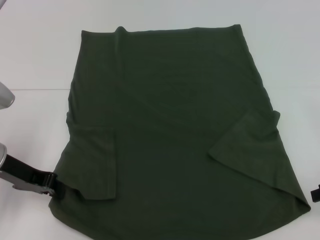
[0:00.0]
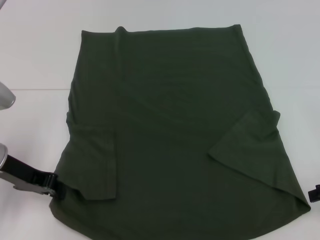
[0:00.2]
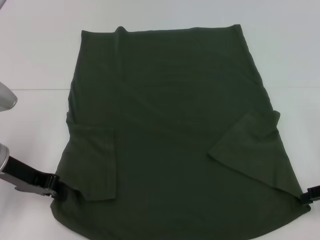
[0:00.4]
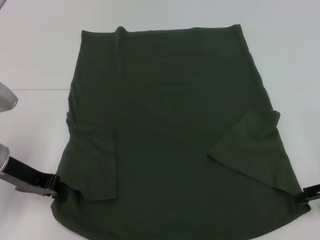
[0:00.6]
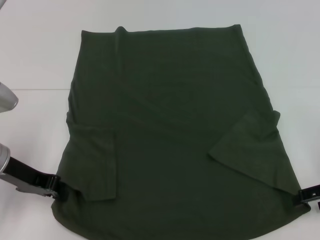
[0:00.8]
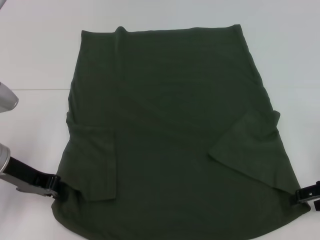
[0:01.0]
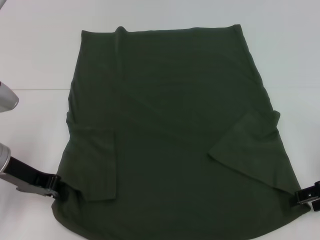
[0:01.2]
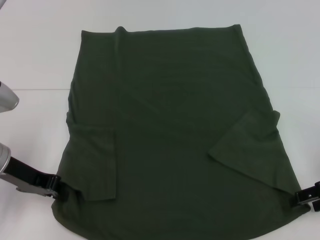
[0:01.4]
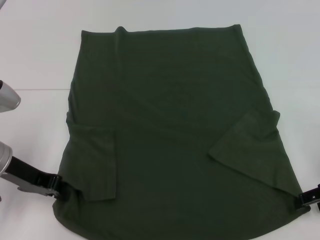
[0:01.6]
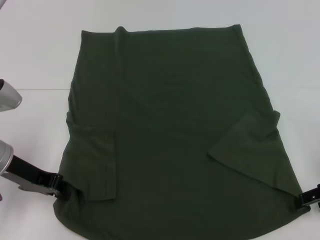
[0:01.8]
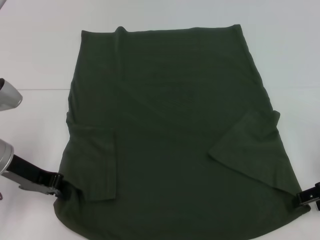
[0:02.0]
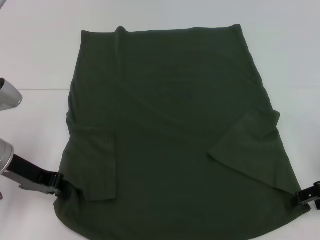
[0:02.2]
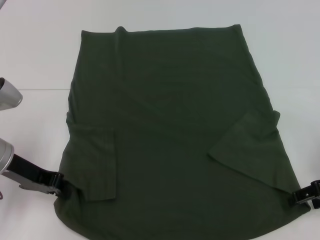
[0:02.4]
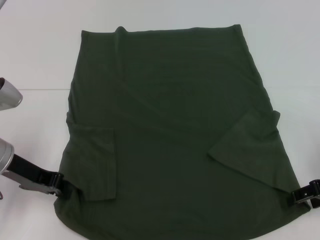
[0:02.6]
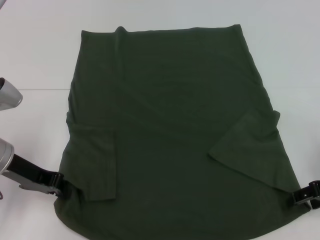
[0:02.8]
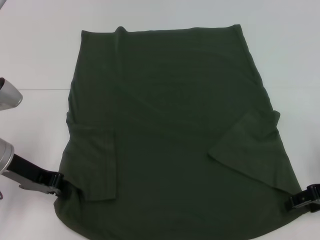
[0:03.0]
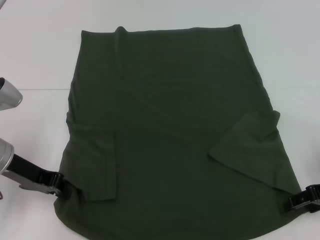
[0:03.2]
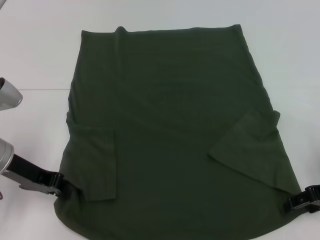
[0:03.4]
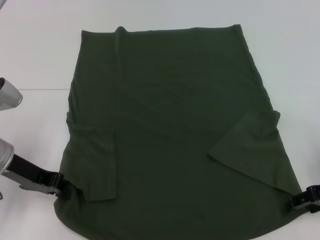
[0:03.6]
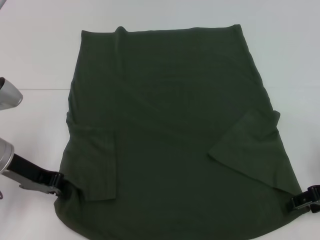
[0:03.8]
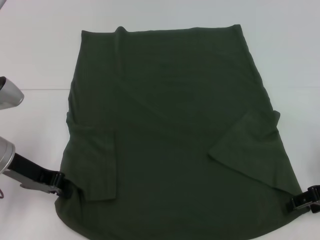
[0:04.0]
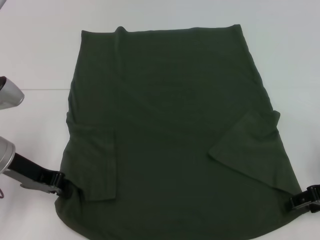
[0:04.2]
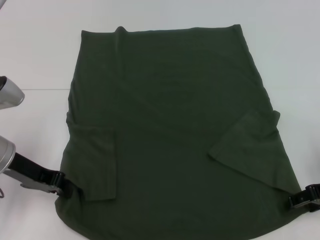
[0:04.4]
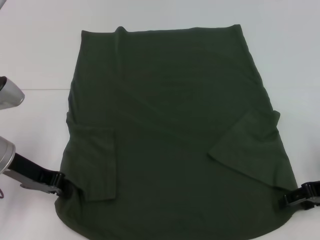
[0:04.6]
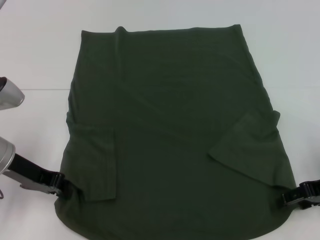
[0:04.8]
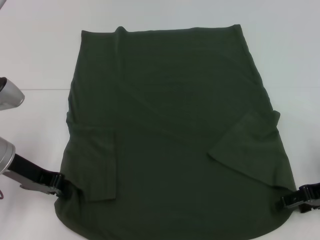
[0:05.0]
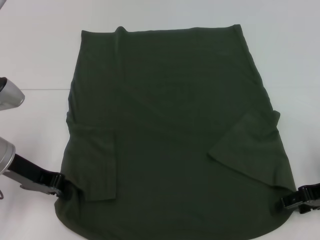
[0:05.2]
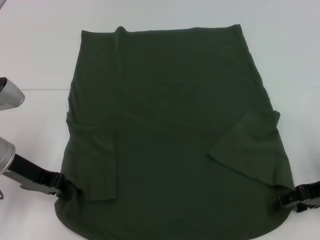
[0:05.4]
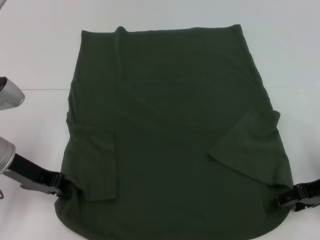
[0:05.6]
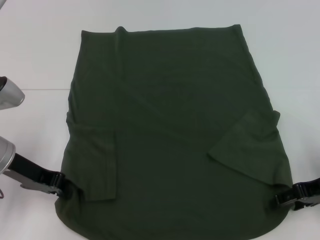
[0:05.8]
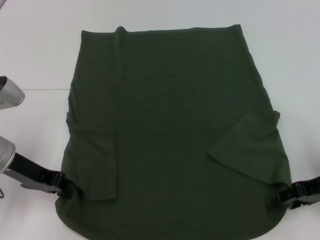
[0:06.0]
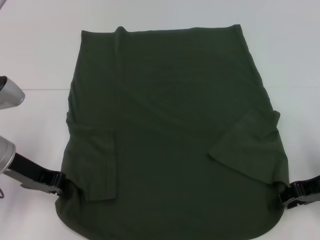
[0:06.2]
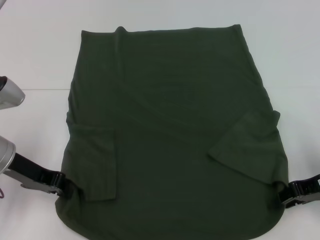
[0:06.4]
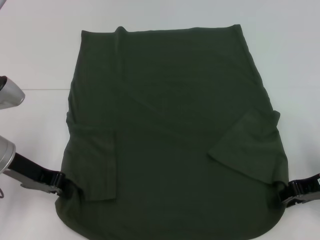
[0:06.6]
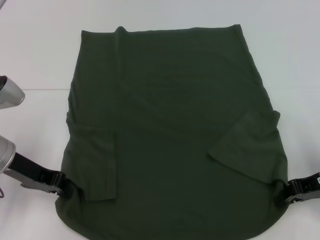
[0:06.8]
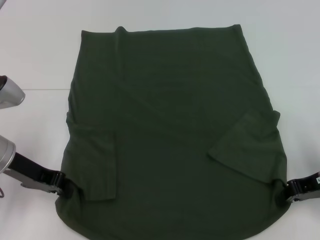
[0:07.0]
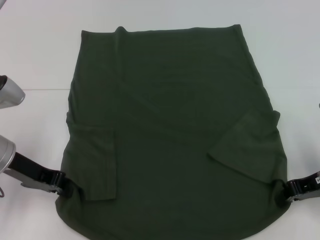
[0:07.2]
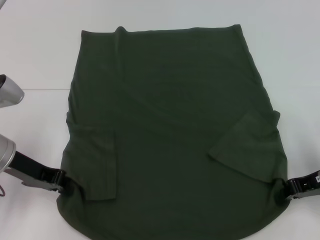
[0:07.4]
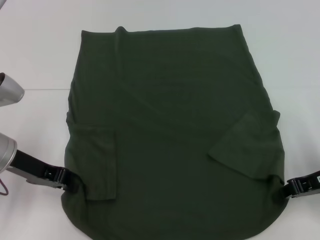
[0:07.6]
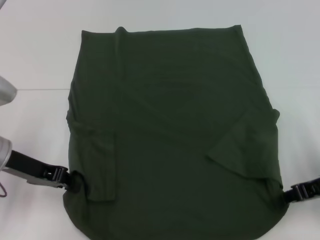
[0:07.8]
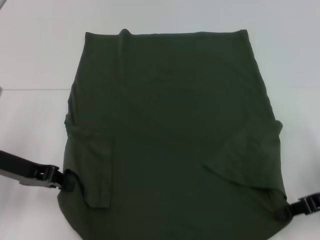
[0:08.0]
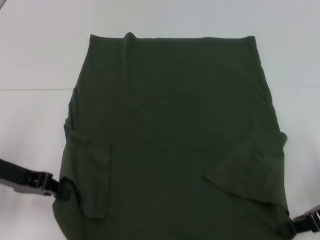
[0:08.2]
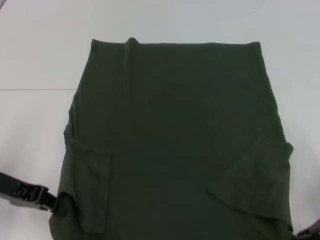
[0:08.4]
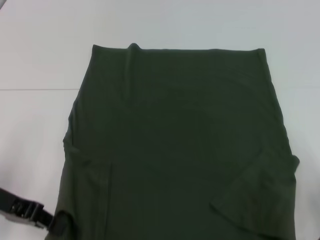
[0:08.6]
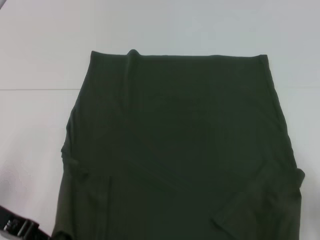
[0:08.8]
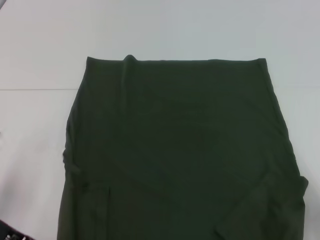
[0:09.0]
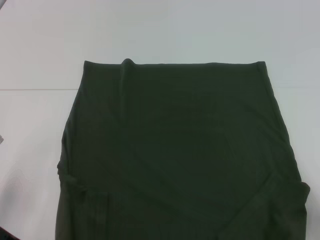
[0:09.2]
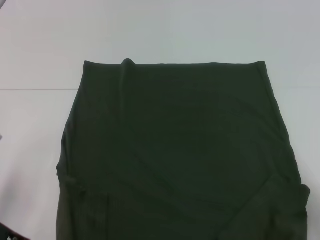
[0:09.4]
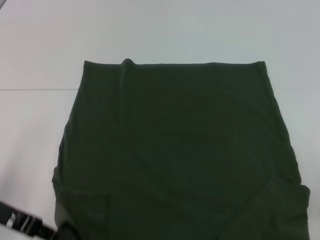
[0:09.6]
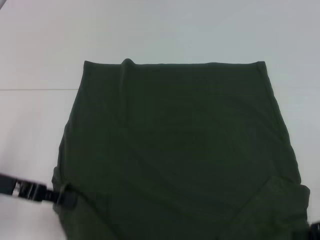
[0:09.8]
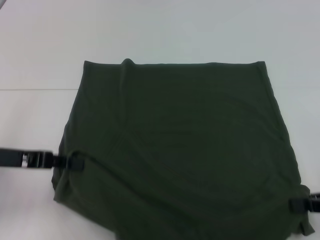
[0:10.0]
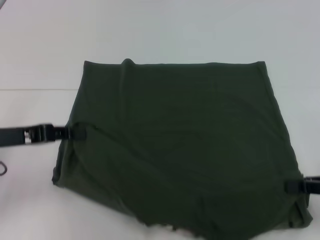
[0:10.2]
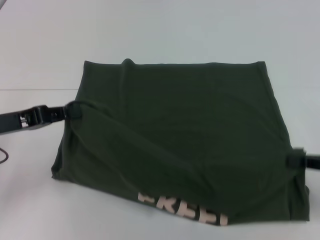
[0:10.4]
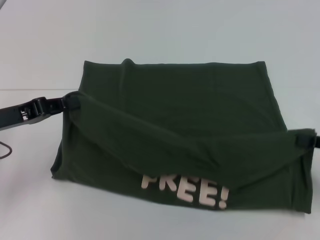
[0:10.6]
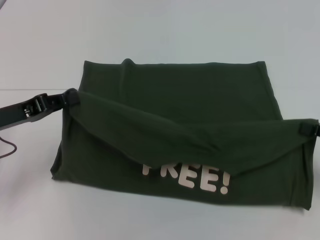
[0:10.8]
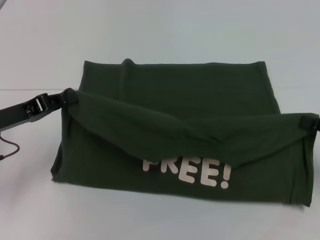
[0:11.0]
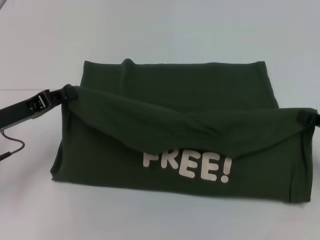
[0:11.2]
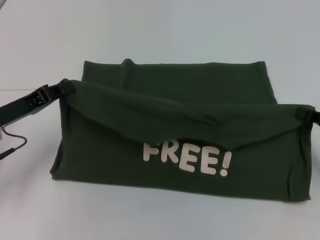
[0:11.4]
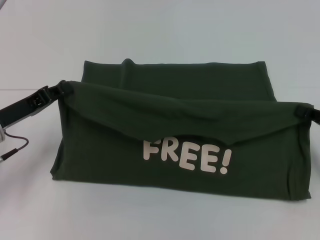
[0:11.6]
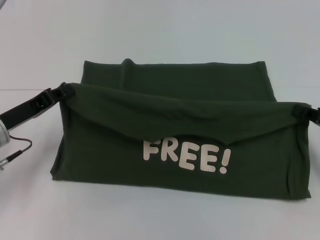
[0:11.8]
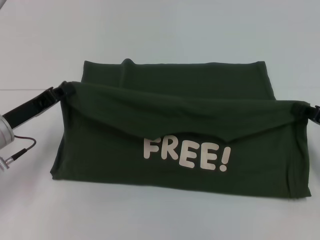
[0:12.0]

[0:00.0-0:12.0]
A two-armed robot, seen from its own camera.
Step, 0:00.0 to 0:07.8: Grab the bottom right corner with your right hand.
0:00.0 to 0:03.0: There are only small adjustments of the grippers.
0:03.0 to 0:04.4: Neither gripper changes place.
0:04.4 to 0:06.0: The grippers stay close to where they were, moving slightly.
0:06.0 to 0:07.6: The right gripper closes its fingers.
0:07.6 to 0:09.0: The grippers both shift backward by about 10 cm.
0:09.0 to 0:10.4: The right gripper shifts by approximately 5 cm.
0:10.4 to 0:12.0: The left gripper shifts some 5 cm downward. The right gripper heads forward, covering about 5 cm.

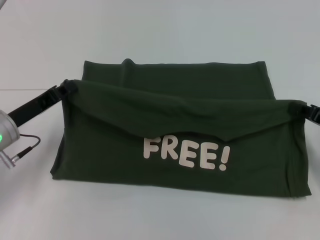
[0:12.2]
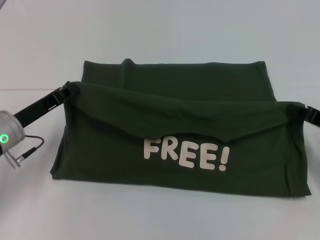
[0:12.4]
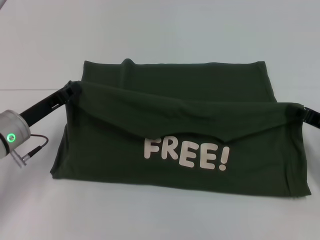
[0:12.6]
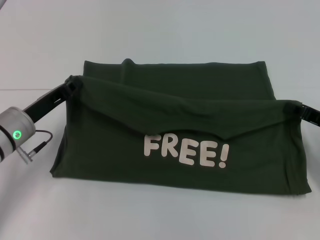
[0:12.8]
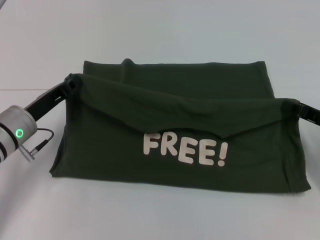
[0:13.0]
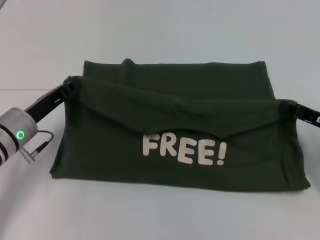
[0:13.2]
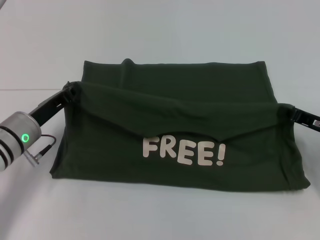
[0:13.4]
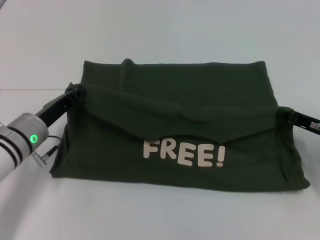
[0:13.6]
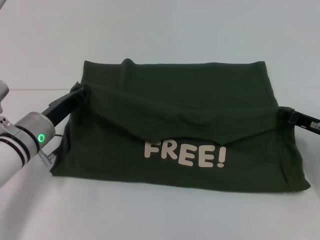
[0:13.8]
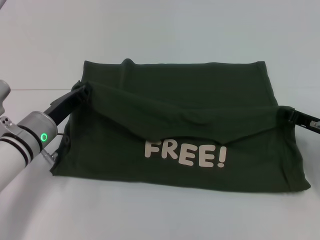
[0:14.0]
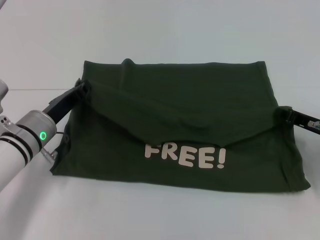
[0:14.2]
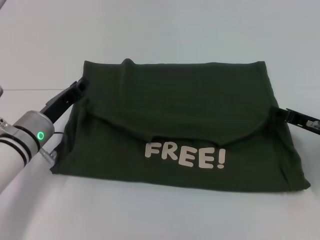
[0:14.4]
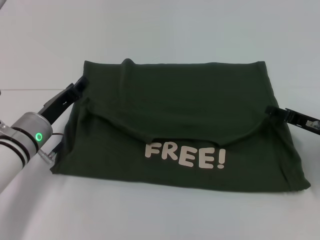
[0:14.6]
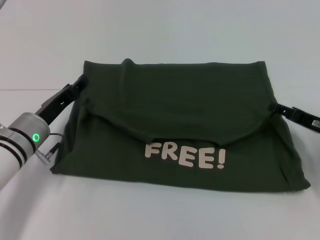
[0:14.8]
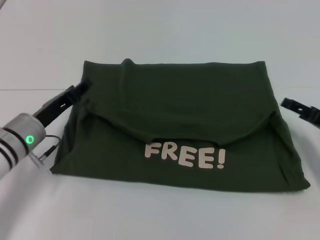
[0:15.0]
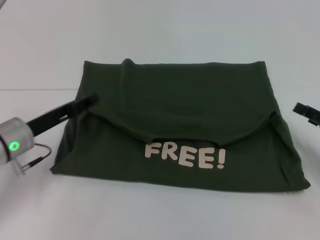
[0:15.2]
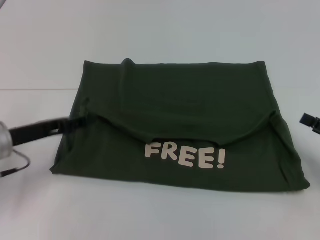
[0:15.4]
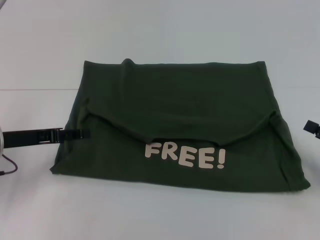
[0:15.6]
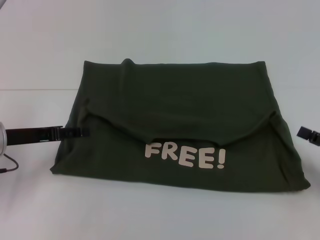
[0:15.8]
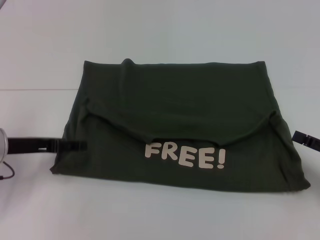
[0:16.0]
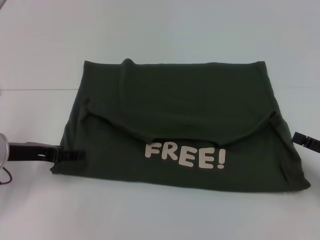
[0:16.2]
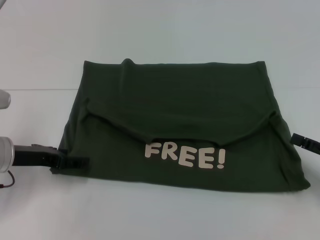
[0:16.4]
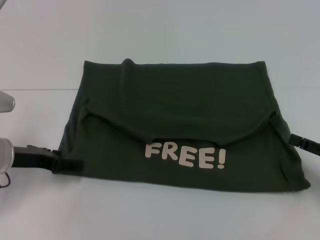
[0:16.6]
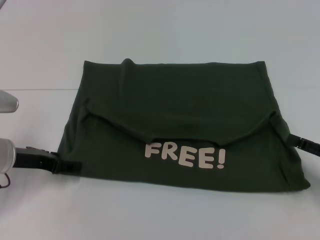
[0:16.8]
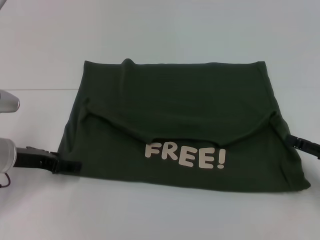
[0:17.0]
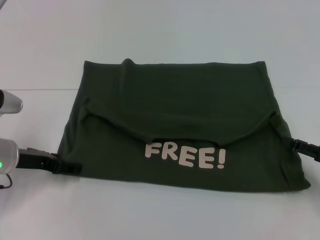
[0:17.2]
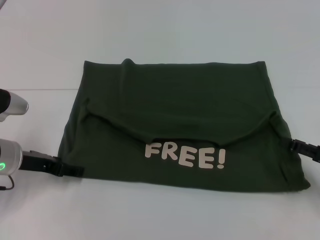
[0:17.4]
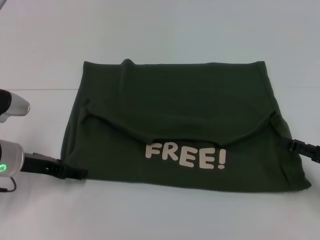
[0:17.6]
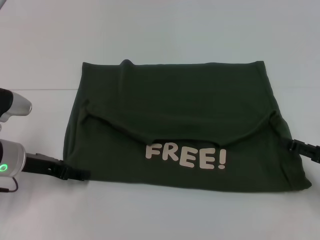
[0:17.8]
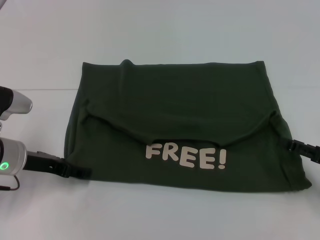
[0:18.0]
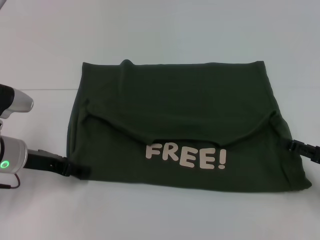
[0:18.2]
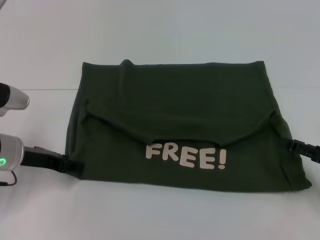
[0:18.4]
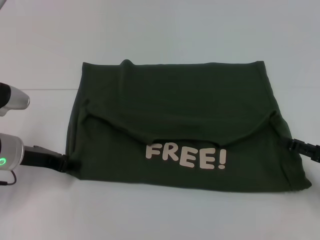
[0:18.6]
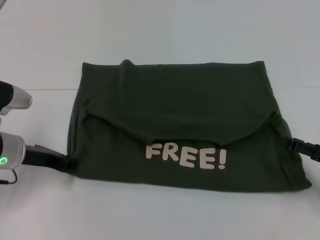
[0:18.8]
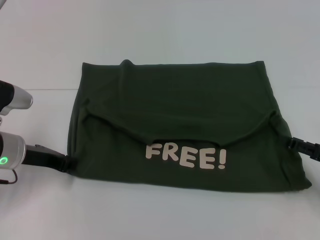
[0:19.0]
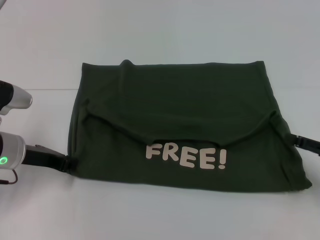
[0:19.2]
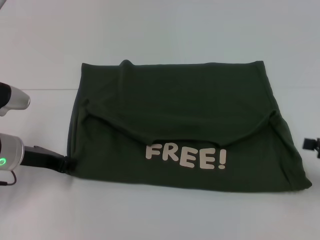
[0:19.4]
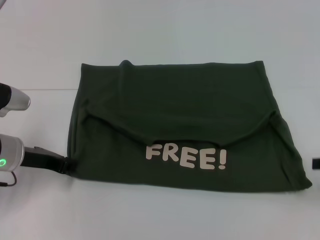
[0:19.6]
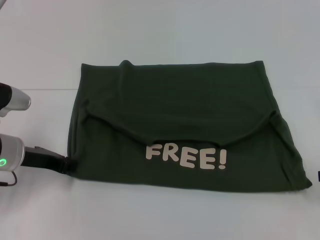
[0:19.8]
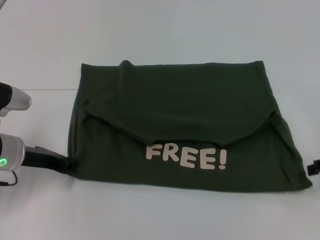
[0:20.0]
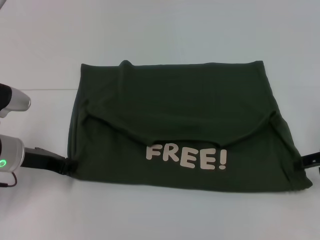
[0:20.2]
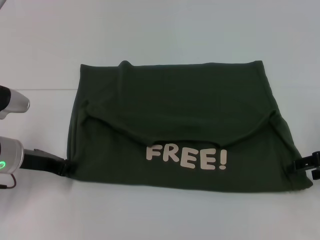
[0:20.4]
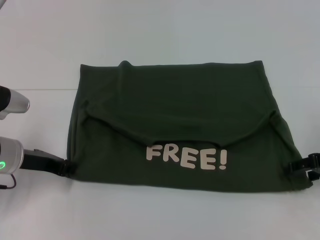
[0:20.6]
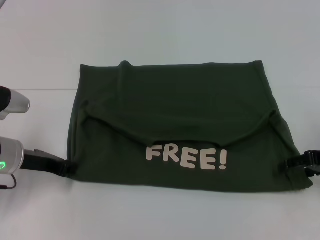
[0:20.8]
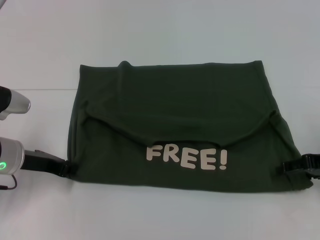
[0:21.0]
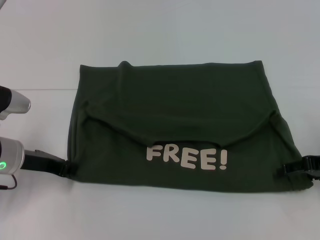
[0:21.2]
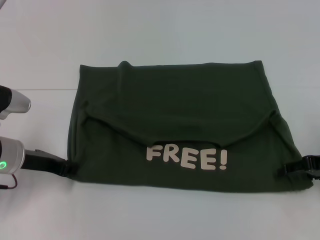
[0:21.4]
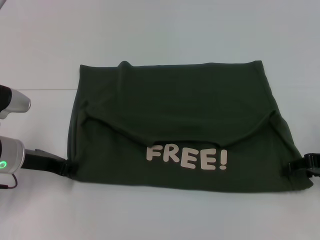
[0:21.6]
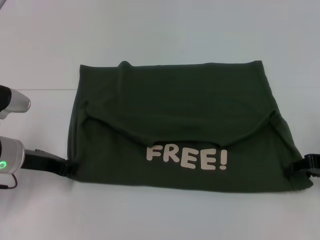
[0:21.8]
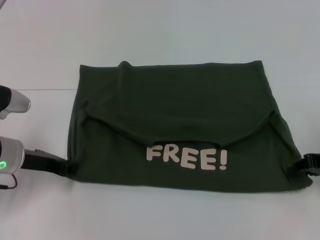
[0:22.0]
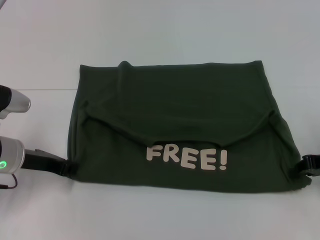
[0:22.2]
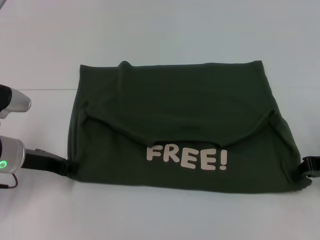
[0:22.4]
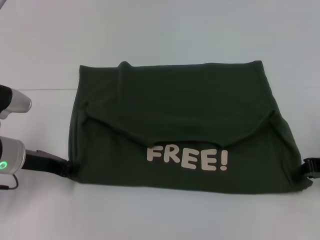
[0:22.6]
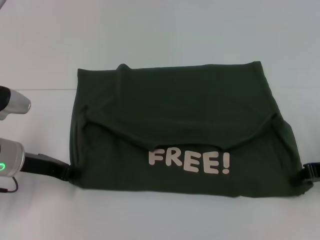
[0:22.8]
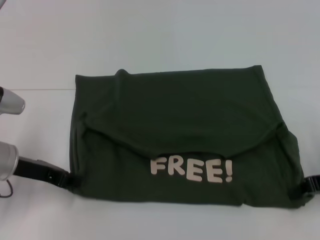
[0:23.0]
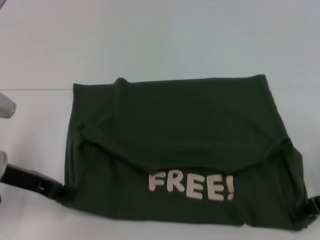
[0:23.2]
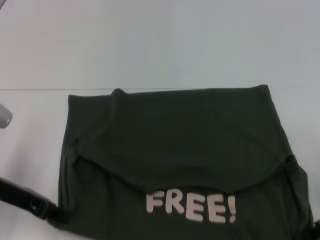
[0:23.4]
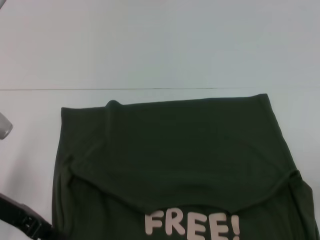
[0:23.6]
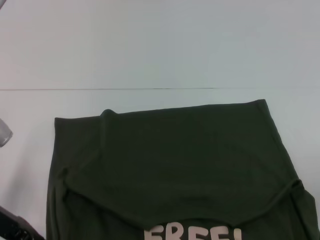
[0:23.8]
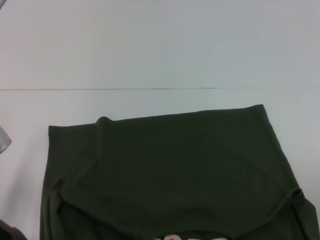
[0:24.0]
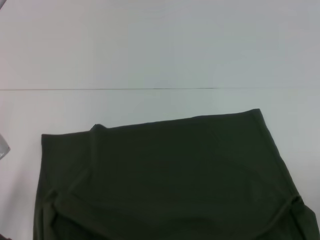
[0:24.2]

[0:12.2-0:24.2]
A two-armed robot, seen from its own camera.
Step, 0:12.2 to 0:14.2: Fold the clothes with your left hand.
Step, 0:12.2 to 0:14.2: Fold the clothes with your right hand.
Step, 0:14.4 to 0:24.2: Pull the clothes with your left hand.
Step, 0:14.4 to 0:24.2: Pull the clothes with your right hand.
0:12.2 to 0:13.8: The left gripper travels to the right by roughly 5 cm.
0:13.8 to 0:15.2: The right gripper shifts approximately 5 cm backward, and opens. Meanwhile the left gripper opens up.
0:16.6 to 0:18.2: The grippers stay close to where they were, moving slightly.
0:18.2 to 0:19.8: The right gripper goes some 5 cm upward, while the left gripper closes up.
0:19.8 to 0:21.2: The right gripper heads to the left, covering some 5 cm.
0:21.2 to 0:22.6: The right gripper closes up.
0:22.6 to 0:24.2: Both grippers travel together backward, about 10 cm.
